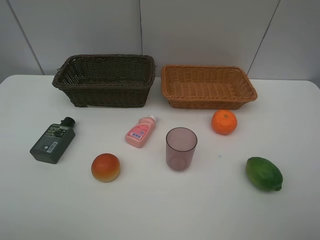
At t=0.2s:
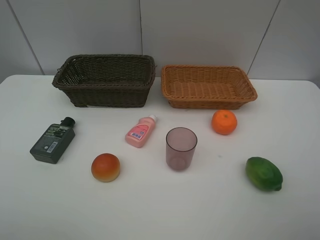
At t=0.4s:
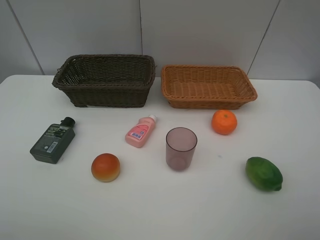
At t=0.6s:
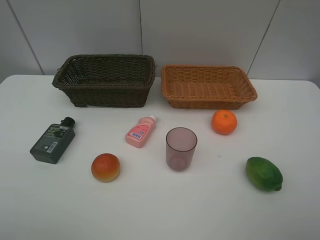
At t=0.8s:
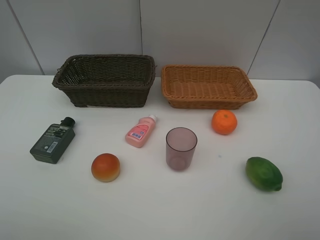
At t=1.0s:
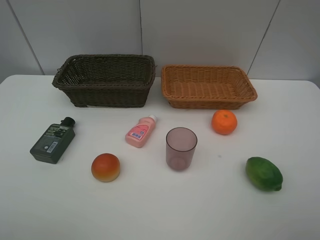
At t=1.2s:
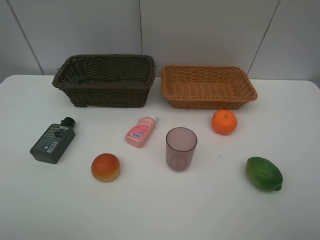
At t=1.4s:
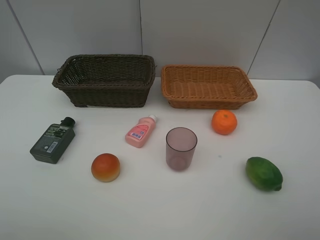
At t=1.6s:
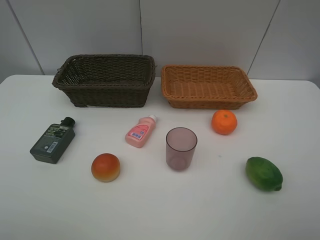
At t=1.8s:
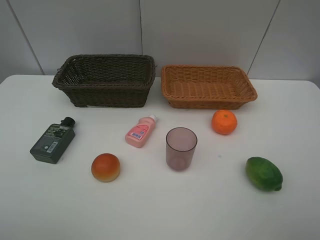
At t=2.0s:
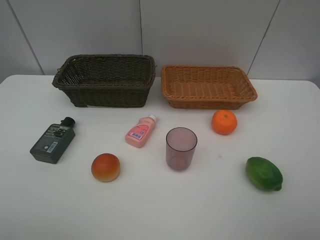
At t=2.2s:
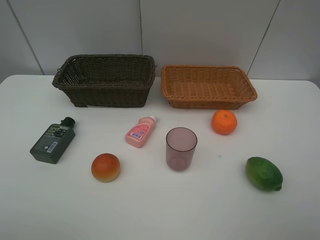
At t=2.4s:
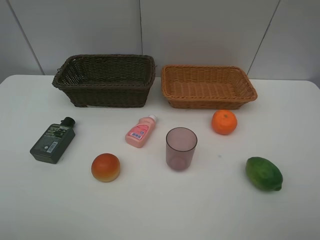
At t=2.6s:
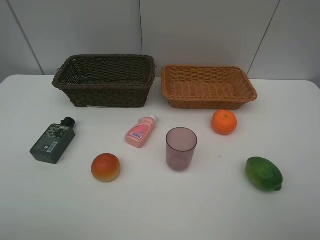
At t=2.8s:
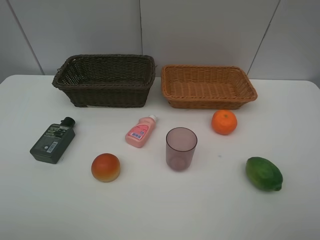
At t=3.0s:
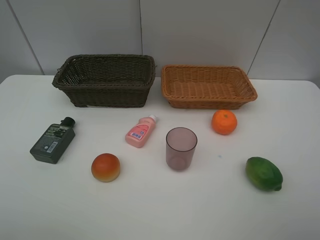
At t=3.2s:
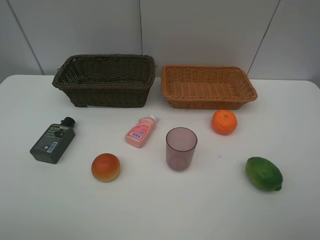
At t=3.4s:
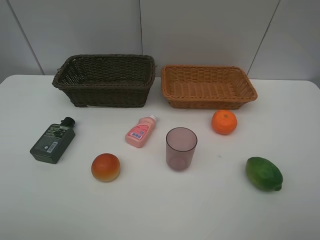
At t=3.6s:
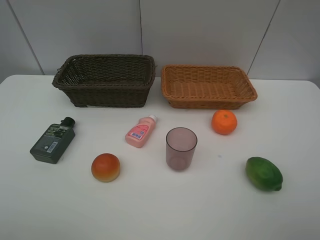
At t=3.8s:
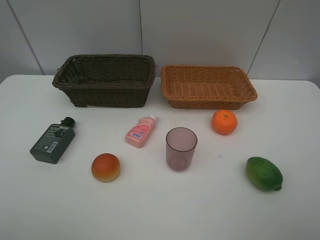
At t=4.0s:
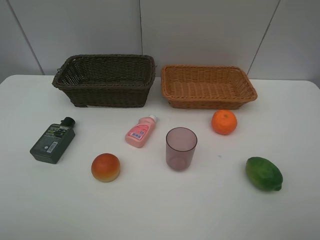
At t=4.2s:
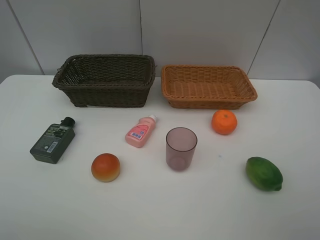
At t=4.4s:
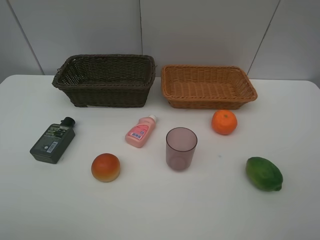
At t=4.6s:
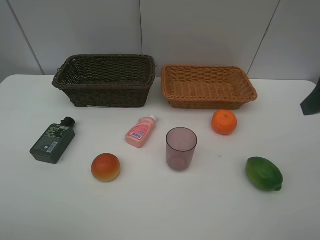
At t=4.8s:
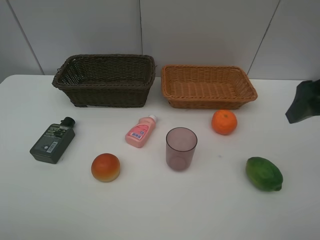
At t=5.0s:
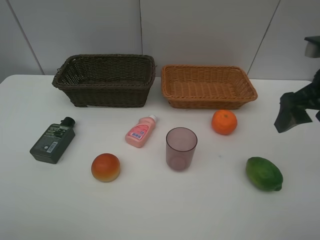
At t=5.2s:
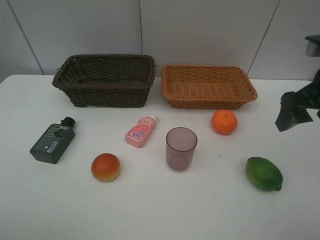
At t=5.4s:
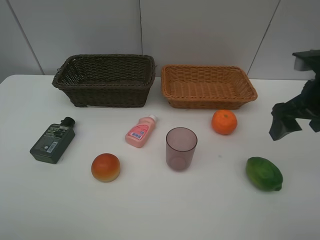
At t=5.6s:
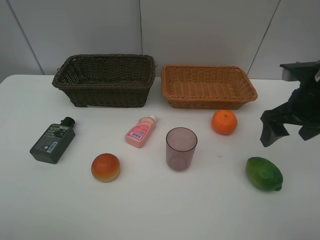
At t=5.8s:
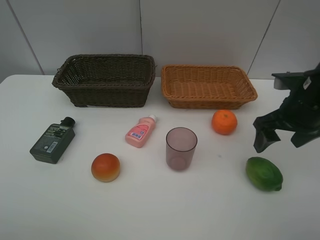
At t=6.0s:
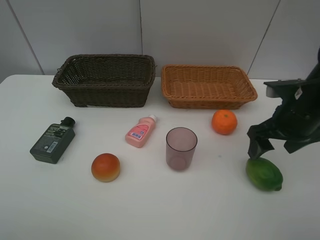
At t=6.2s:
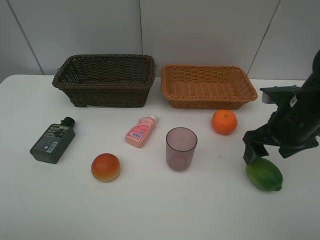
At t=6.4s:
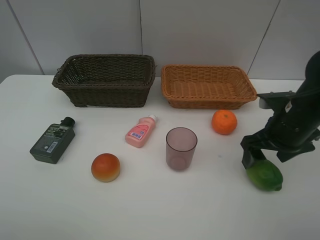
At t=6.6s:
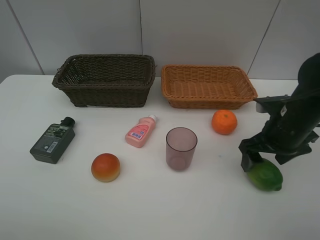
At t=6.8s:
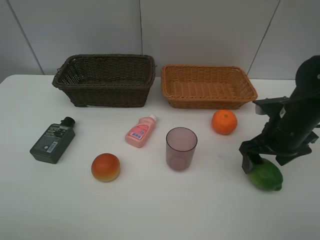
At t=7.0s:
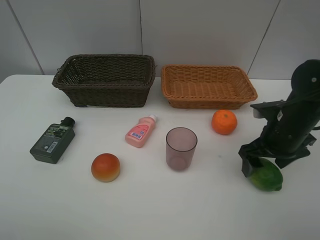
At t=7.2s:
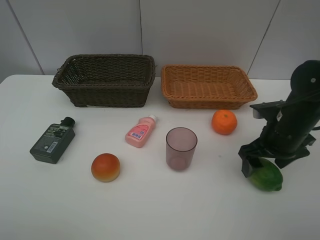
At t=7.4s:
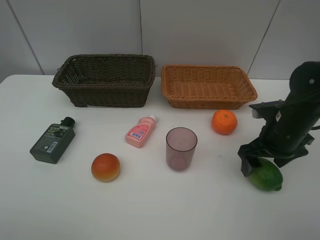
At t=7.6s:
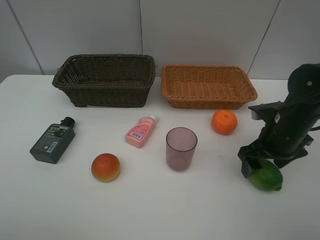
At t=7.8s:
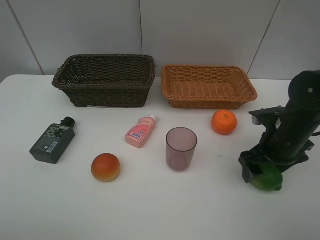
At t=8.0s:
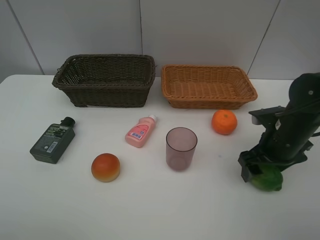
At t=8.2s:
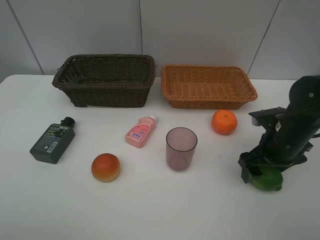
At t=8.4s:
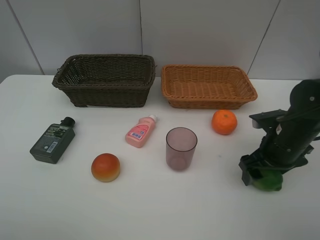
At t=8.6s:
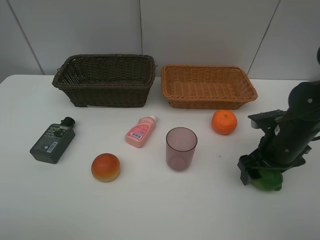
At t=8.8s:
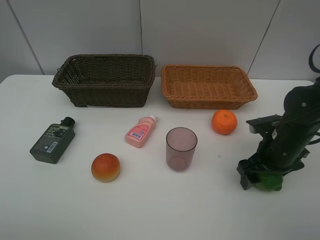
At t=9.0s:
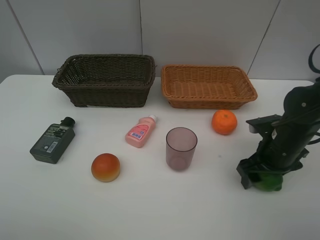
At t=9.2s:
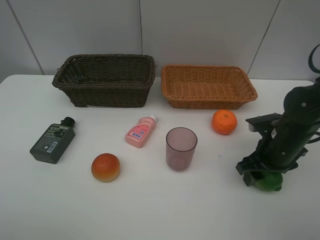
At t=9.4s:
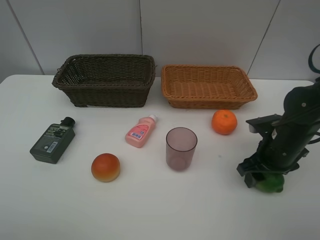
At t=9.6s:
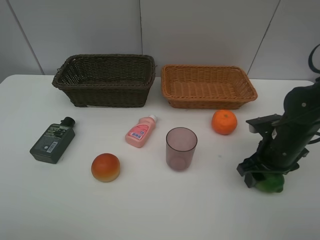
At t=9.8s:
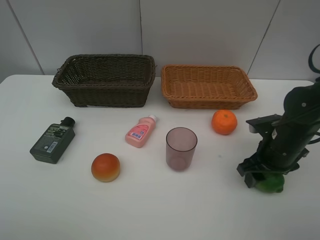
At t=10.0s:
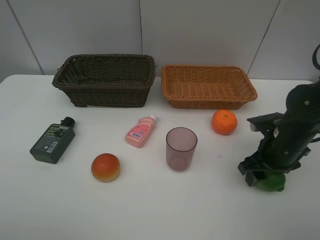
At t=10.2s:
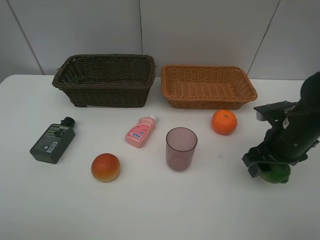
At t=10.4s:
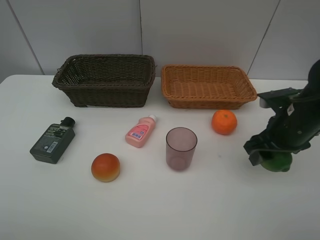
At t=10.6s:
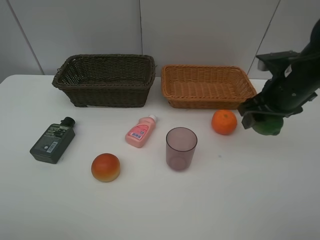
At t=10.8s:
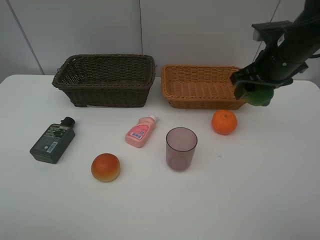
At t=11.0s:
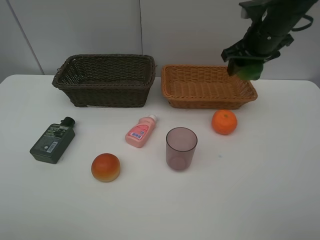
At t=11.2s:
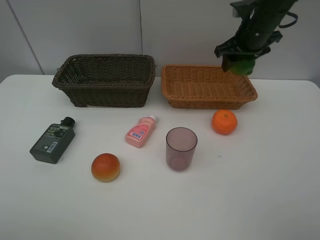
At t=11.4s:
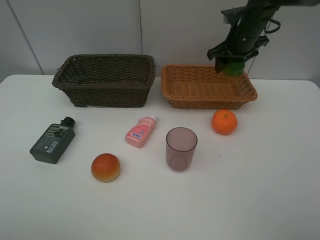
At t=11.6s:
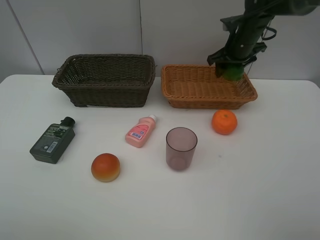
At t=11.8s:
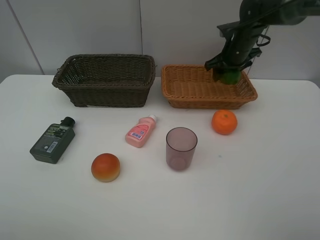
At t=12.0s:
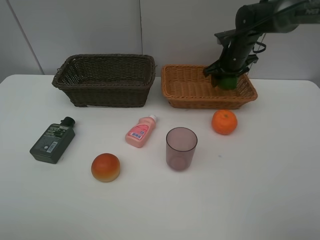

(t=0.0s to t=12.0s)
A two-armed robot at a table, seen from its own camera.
Task of the whole recording: place multiple objects separately in different baskets.
t=0.0s - t=3.0s: The two grippers keep their place.
t=4.4s - t=6.0s: The right gripper moves downward and forward, roughly 15 cm.
t=6.0s - t=7.6s: The right gripper heads downward, covering approximately 5 cm.
t=7.6s - t=9.0s: The grippers move only a little.
t=9.0s - t=10.4s: The right gripper moves upward, approximately 5 cm, and closes.
t=10.4s - t=12.0s: The right gripper travels forward by some 25 cm.

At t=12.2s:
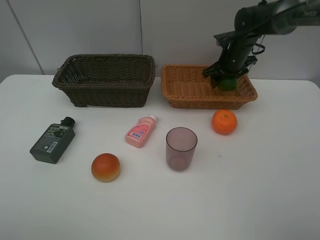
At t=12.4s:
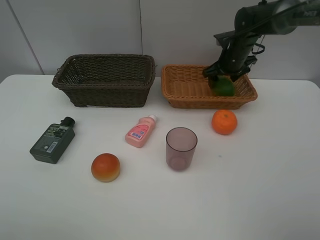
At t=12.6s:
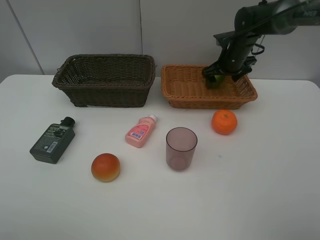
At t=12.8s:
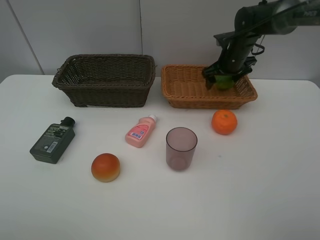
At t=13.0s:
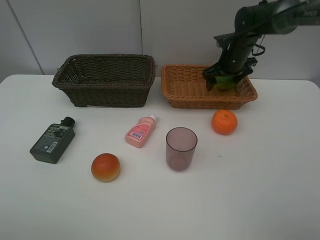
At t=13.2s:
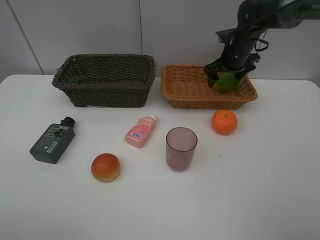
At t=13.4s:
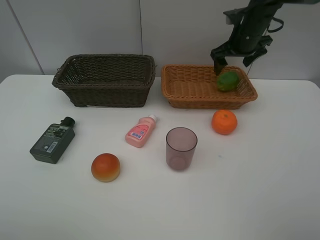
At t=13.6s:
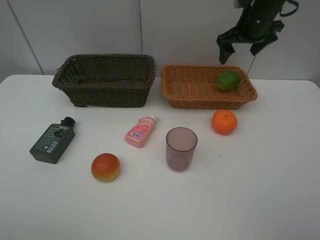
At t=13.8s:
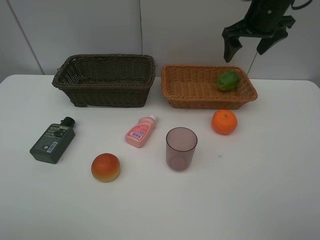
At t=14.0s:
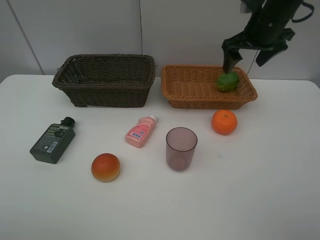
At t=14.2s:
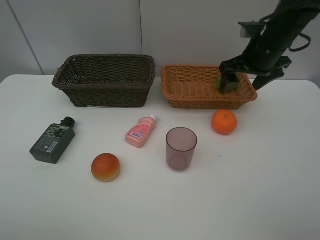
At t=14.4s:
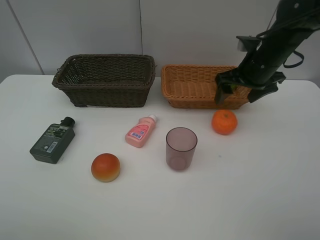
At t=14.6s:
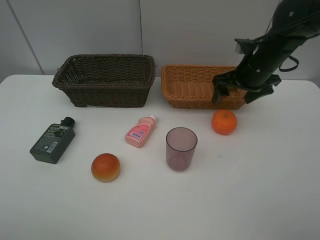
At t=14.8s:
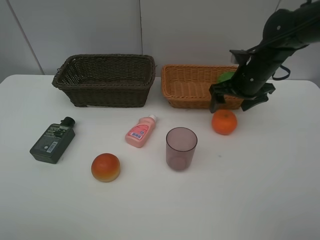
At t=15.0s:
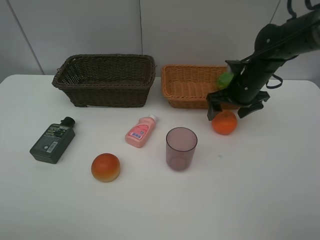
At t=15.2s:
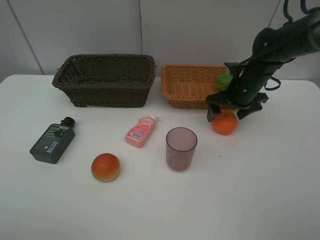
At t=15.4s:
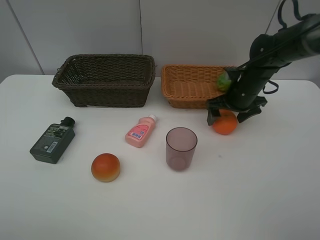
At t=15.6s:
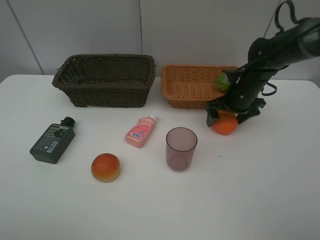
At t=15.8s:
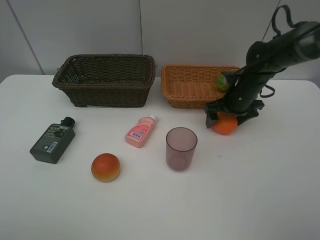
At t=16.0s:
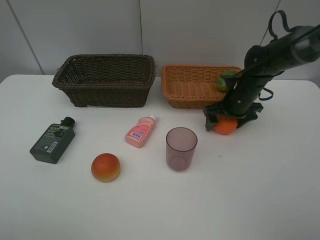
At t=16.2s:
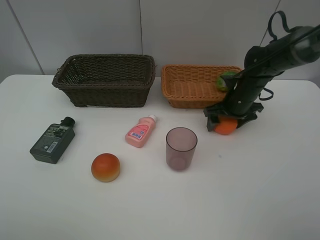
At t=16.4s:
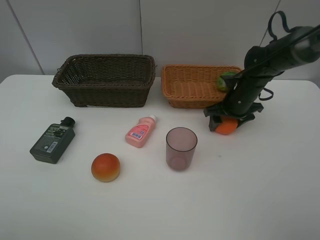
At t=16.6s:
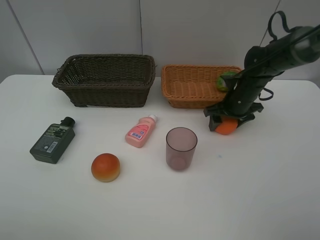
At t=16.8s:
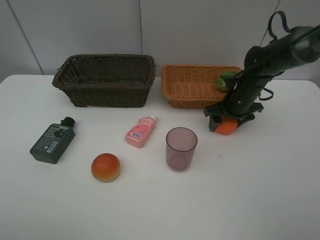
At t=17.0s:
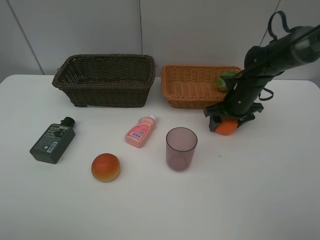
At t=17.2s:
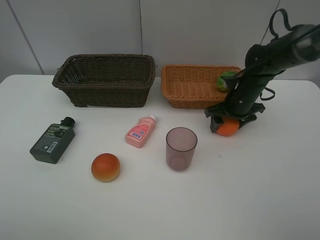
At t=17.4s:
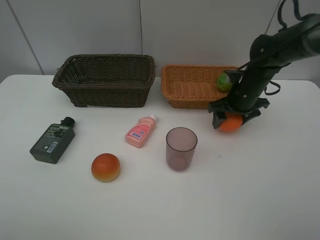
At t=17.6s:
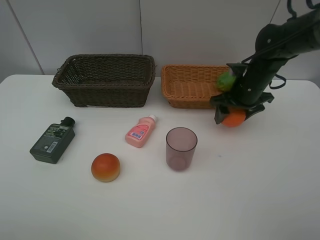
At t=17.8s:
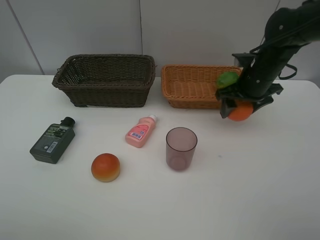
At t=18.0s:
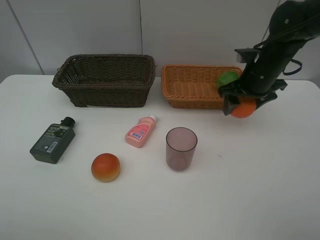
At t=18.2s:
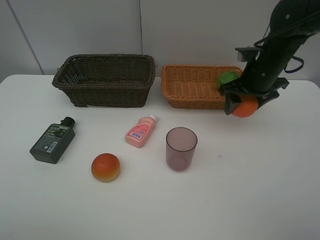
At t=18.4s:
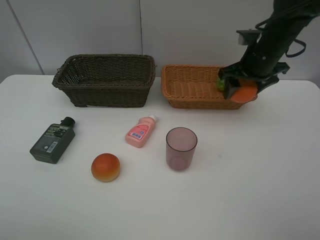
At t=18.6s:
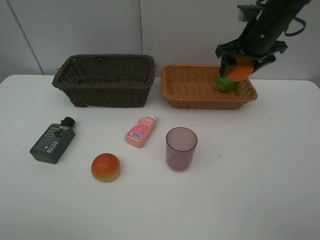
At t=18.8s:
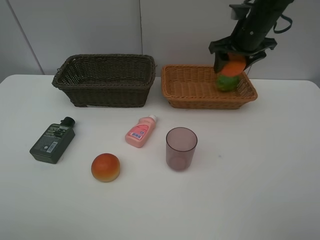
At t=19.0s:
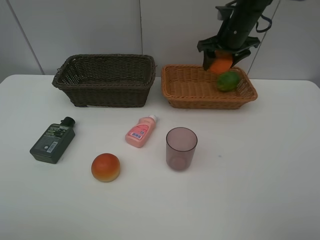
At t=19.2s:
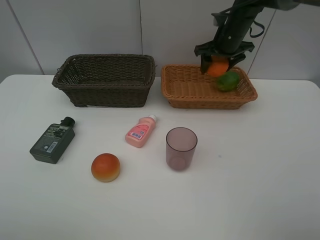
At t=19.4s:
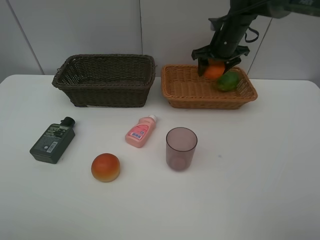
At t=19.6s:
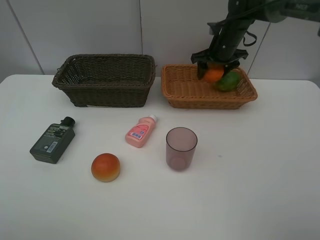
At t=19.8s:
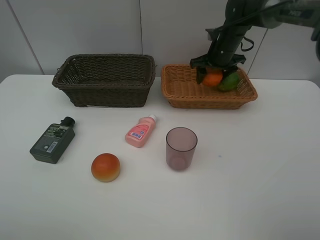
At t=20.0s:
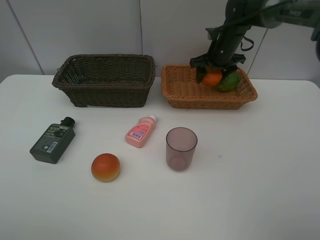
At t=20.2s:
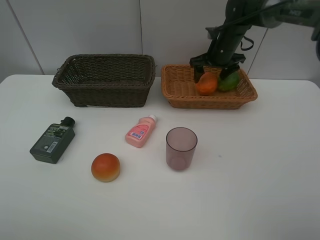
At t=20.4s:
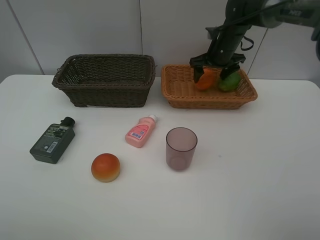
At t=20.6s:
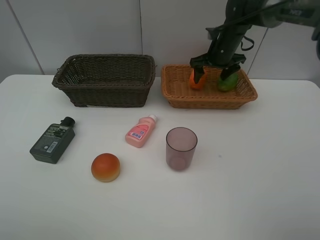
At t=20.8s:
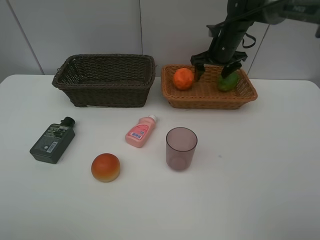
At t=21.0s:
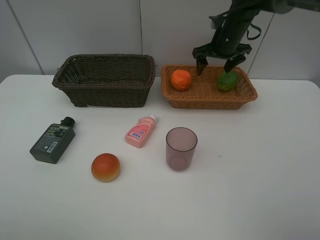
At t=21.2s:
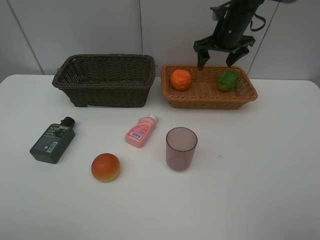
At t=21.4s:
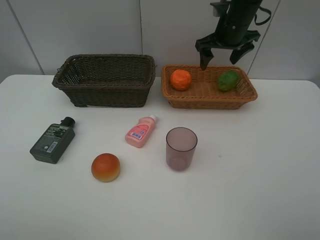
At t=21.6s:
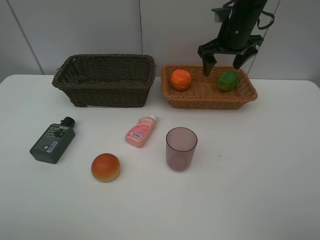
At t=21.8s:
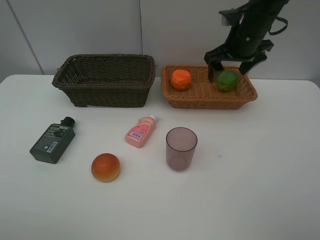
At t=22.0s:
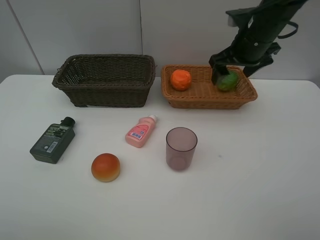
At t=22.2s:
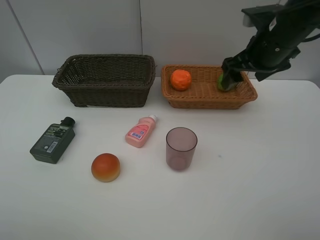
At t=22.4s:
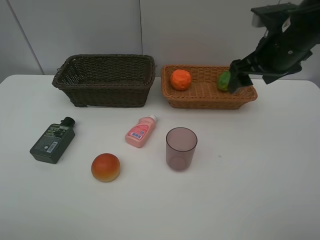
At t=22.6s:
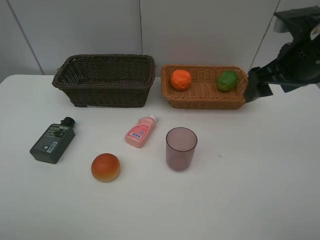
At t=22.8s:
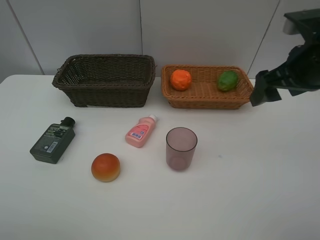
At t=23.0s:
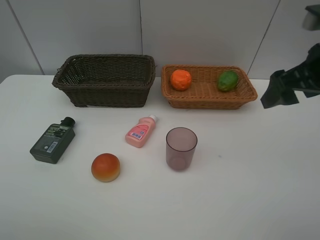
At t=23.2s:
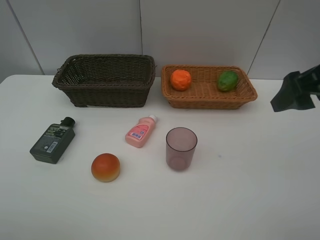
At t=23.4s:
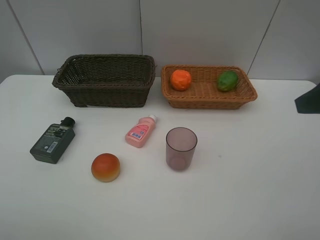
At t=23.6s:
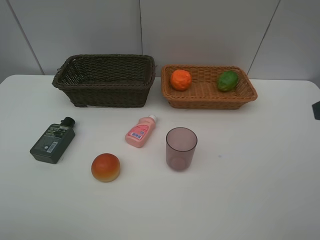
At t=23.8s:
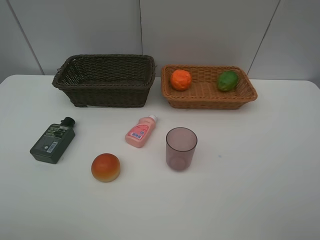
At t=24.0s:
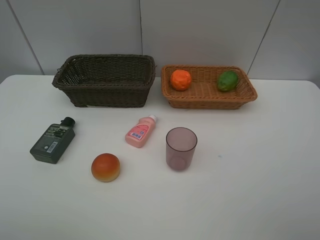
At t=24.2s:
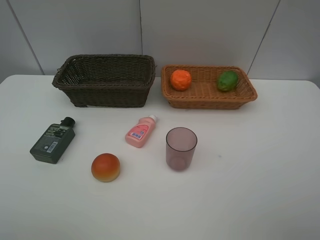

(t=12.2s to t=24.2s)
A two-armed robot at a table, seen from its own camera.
Task of the whole recording: place multiple objects separately in different baskets.
t=12.2s - t=13.8s: The right gripper travels upward and backward by approximately 15 cm, and opens.
t=13.8s - t=15.2s: The right gripper goes roughly 15 cm downward.
t=15.2s - t=16.6s: The right gripper closes its fingers.
t=16.6s - t=18.2s: The right gripper heads upward, covering about 10 cm.
t=18.2s - t=19.8s: The right gripper moves forward, roughly 15 cm.
t=19.8s - t=21.2s: The right gripper heads upward, covering about 5 cm, and opens its fingers.
t=21.2s - t=22.6s: The right gripper moves backward, about 20 cm.
t=22.6s - t=24.2s: The right gripper shifts about 25 cm backward.
